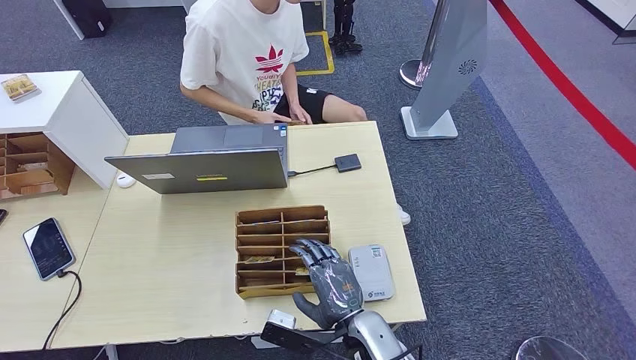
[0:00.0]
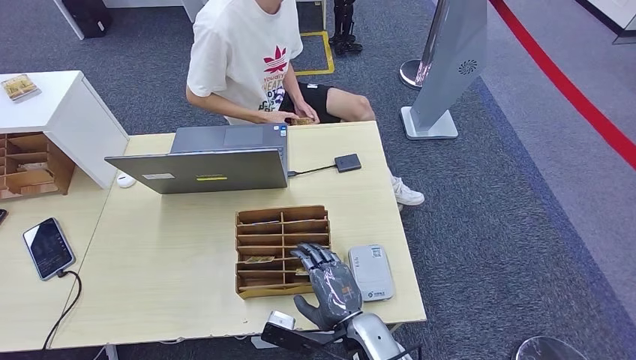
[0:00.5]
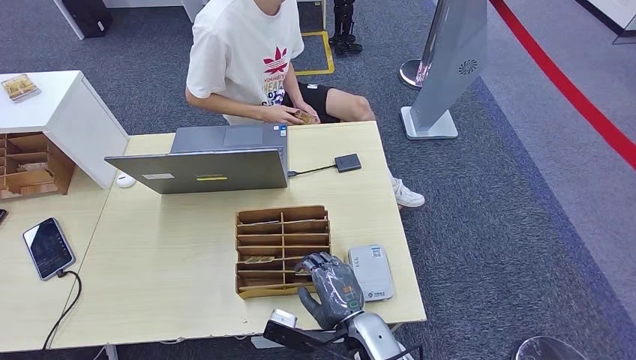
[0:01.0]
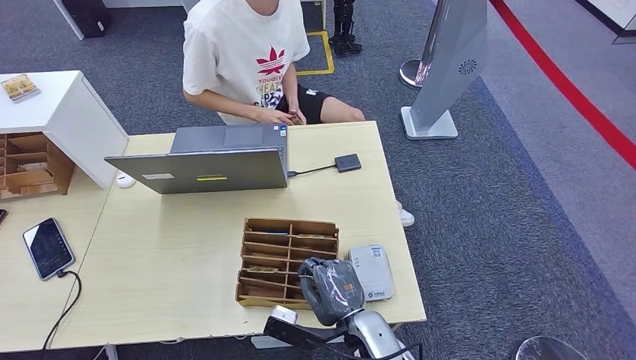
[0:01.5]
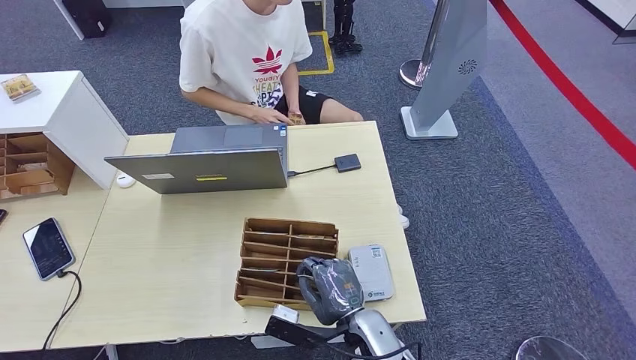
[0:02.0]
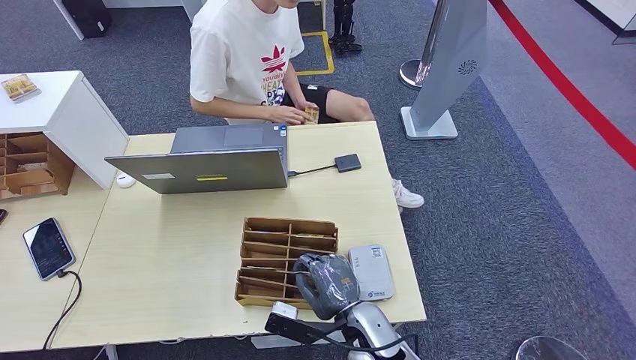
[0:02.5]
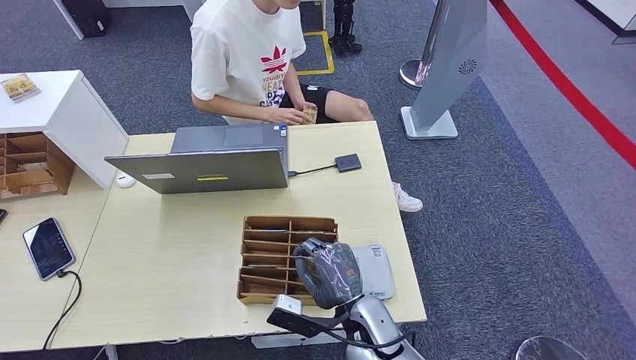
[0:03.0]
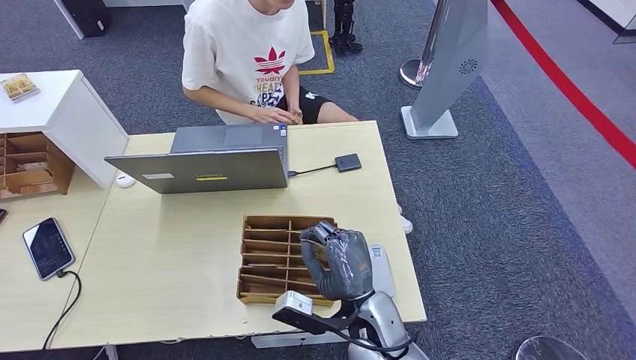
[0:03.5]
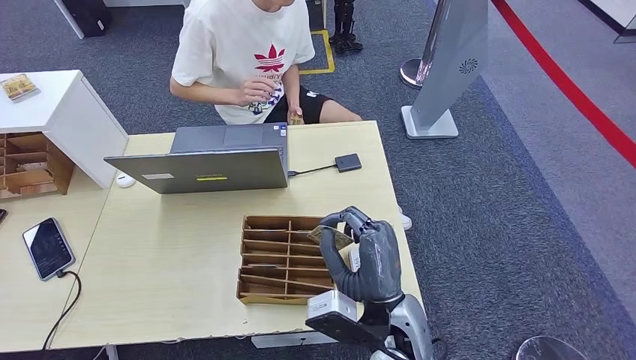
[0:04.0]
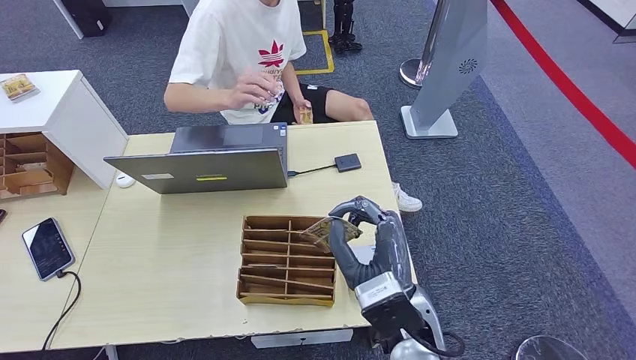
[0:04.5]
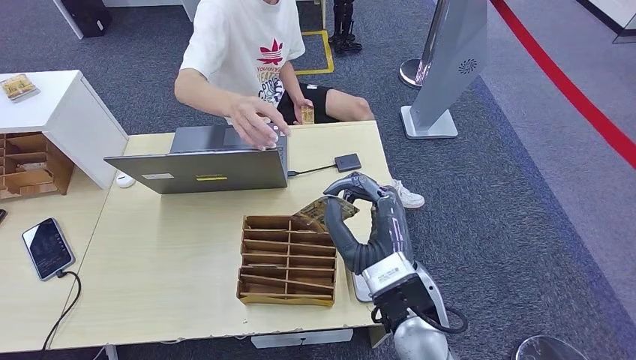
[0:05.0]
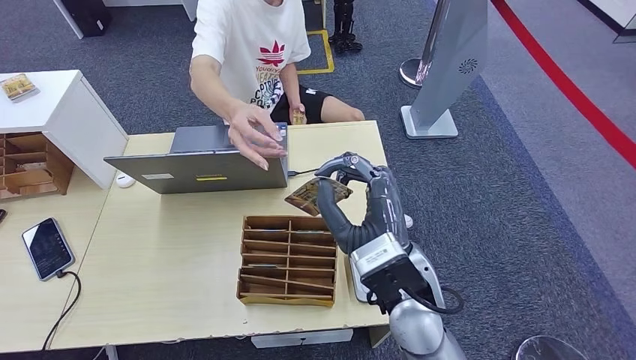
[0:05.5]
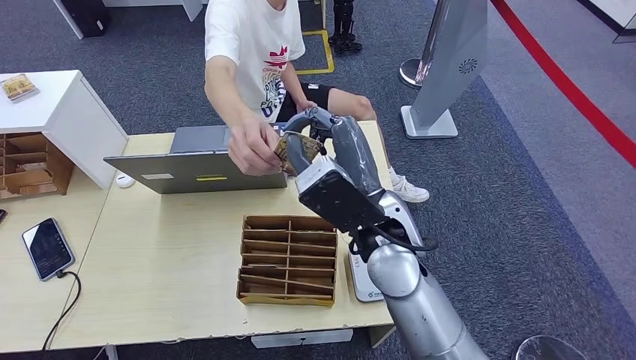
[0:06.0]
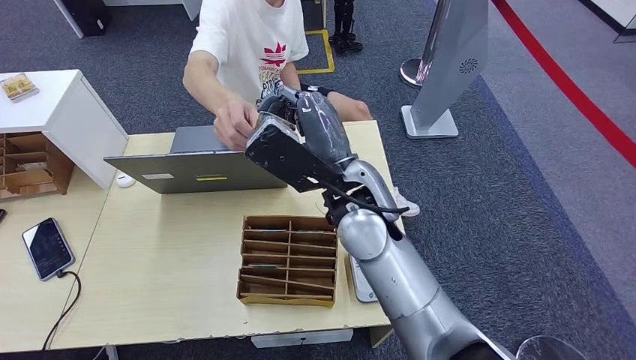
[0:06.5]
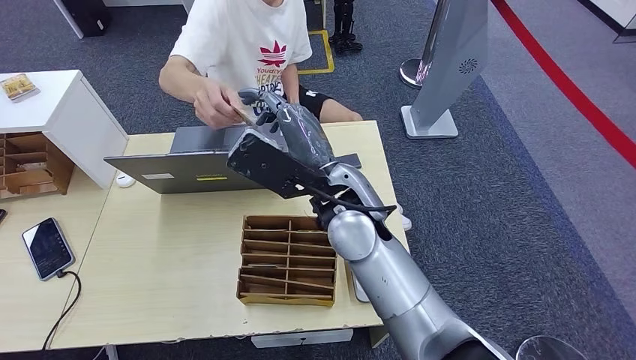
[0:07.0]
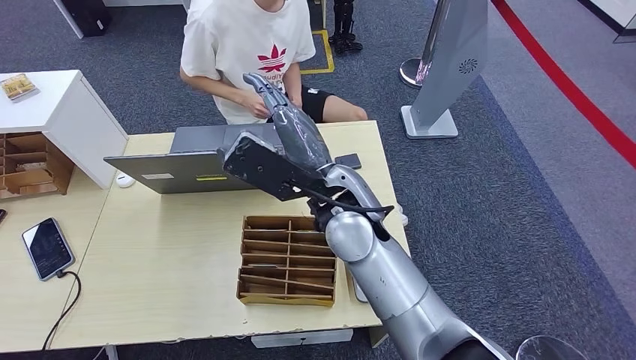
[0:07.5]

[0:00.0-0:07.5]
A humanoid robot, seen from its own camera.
Step, 0:00.0 to 0:02.5: Pick up the room key from the key card box.
Step, 0:03.0 to 0:07.5: Hand the room key to the person.
0:00.0 to 0:02.0: There are only small adjustments of the hands.
0:02.0 to 0:04.0: The left hand travels to the left and back again, roughly 10 cm each way. Meanwhile the right hand heads upward, covering approximately 10 cm.
0:04.0 to 0:05.5: The right hand shifts approximately 10 cm upward.
0:05.5 to 0:07.5: The right hand moves forward, to the left and upward, approximately 15 cm.
